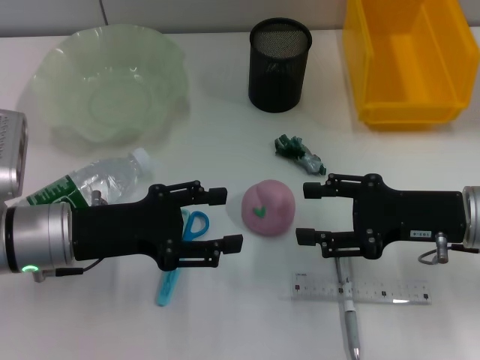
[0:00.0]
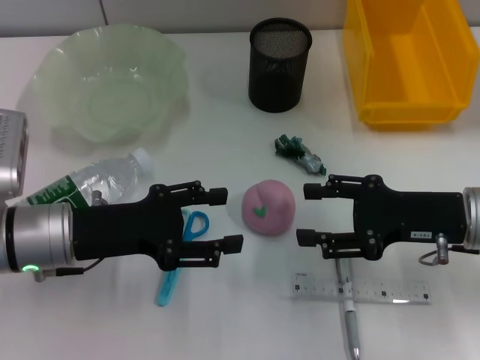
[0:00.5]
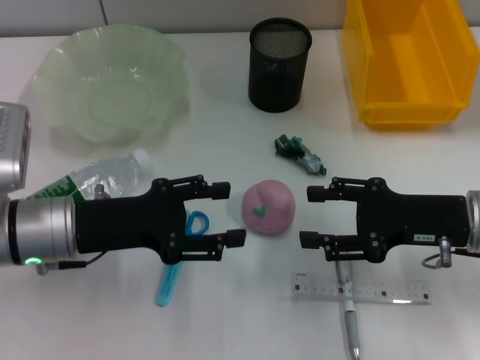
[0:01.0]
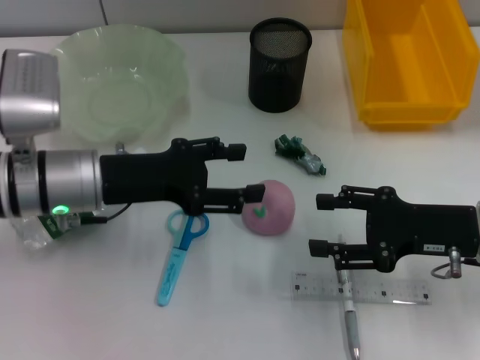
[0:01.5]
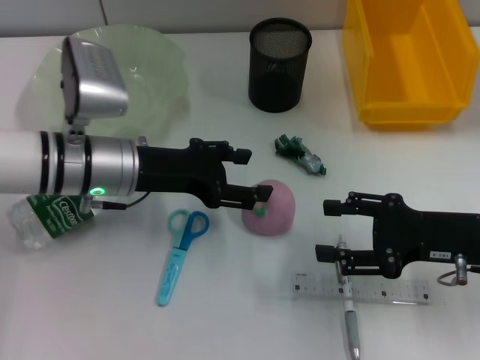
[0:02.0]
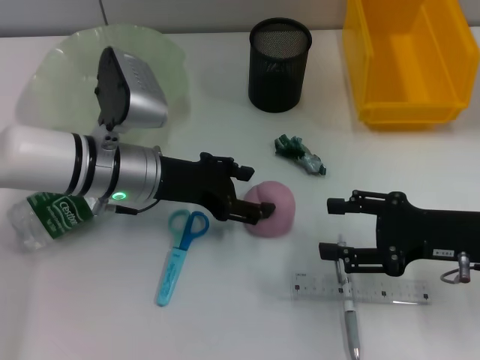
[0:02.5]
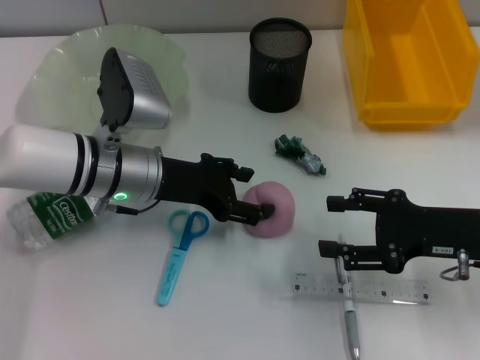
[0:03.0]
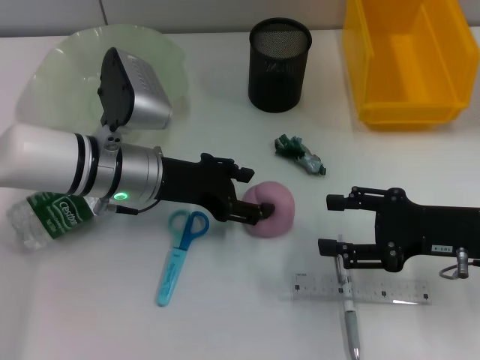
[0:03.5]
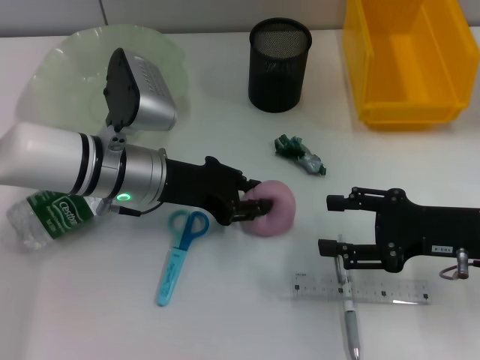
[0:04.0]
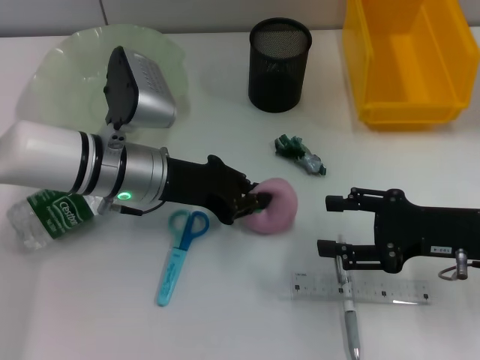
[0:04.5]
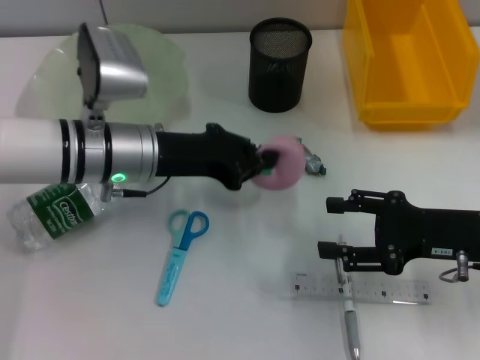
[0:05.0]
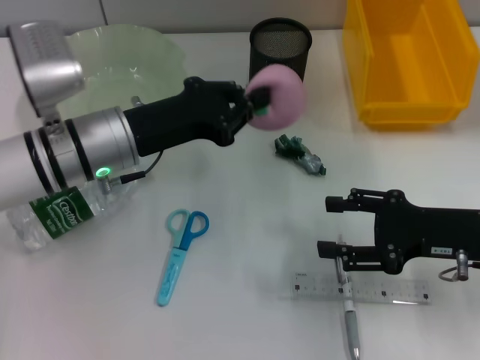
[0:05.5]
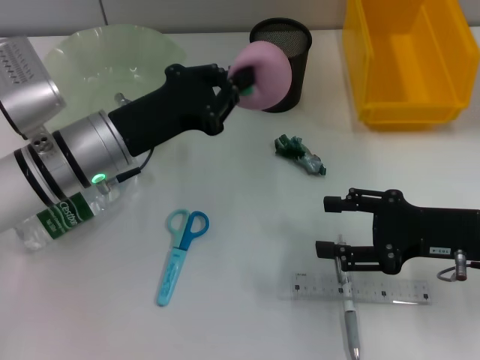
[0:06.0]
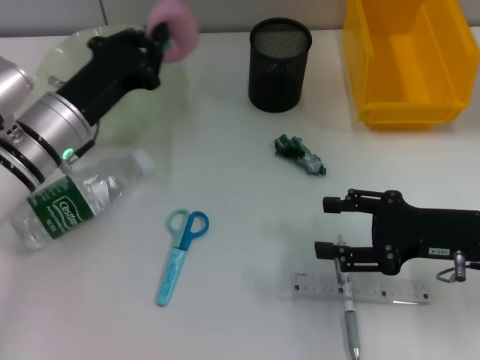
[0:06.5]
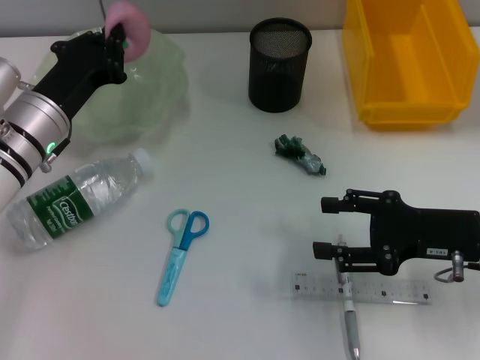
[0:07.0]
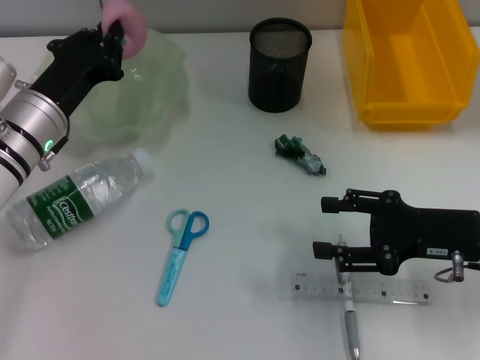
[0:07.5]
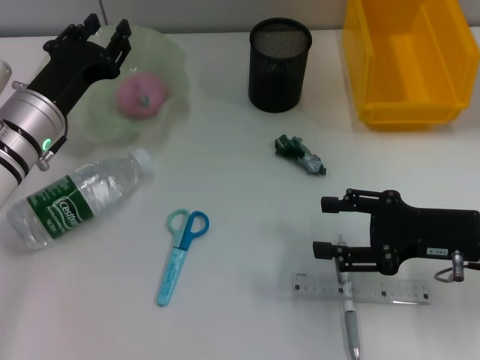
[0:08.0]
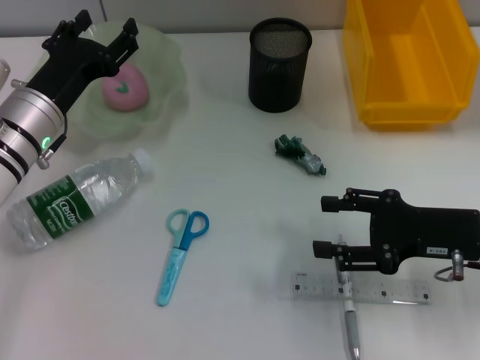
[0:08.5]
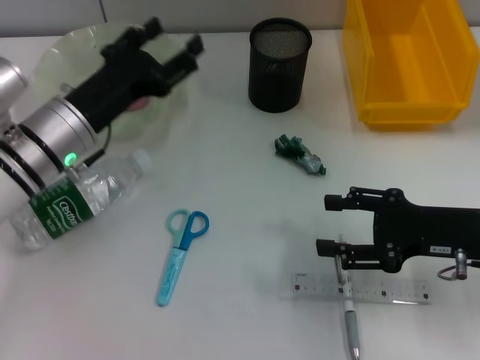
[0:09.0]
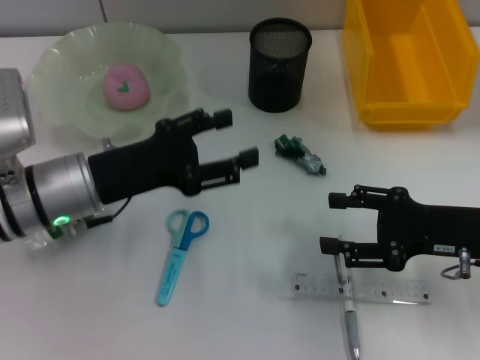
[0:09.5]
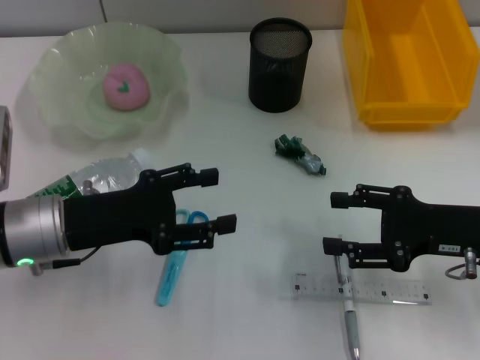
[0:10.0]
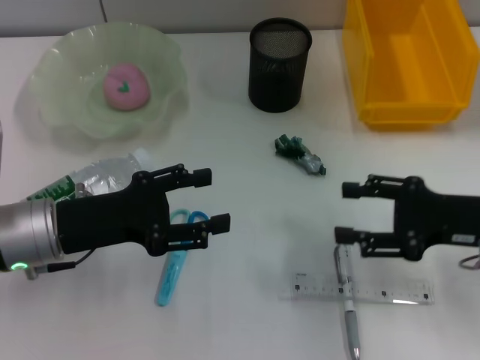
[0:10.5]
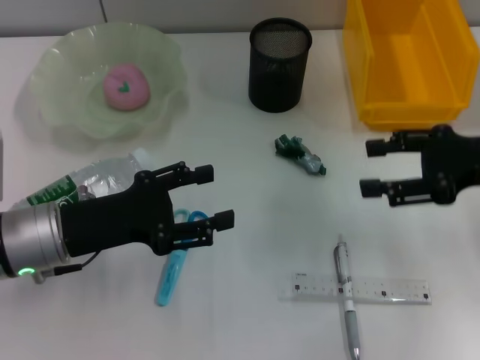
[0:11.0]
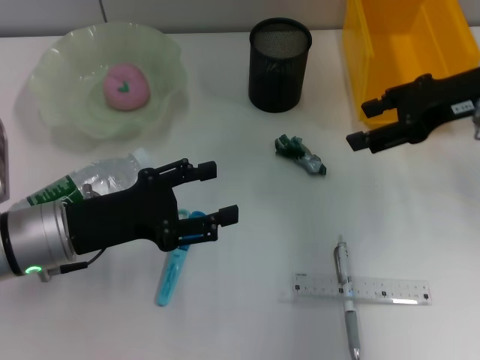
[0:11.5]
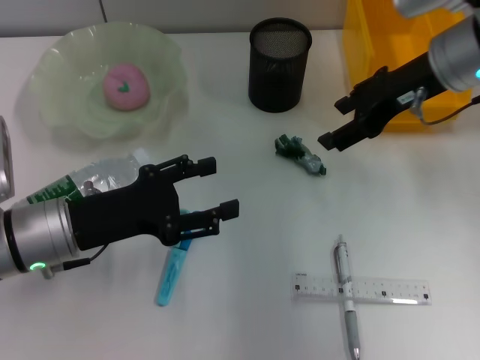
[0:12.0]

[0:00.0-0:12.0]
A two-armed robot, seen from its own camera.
Step, 0:00.0 to 0:04.5: Grab the peach with the left hand.
Step, 0:05.0 to 0:08.0: Place the peach into the fruit bowl with the left hand.
0:00.0 to 0:02.0: The left gripper travels forward and to the right by roughly 10 cm.
0:02.0 to 0:04.0: The left gripper closes its fingers.
0:04.0 to 0:06.0: The left gripper closes its fingers.
0:06.0 to 0:08.0: The left gripper is displaced to the left by some 5 cm.
0:08.0 to 0:10.0: The left gripper travels backward by approximately 10 cm, and opens.
0:10.0 to 0:12.0: The right gripper is displaced forward, upward and to the left by some 20 cm.

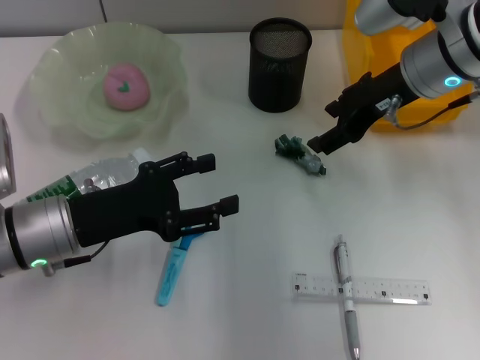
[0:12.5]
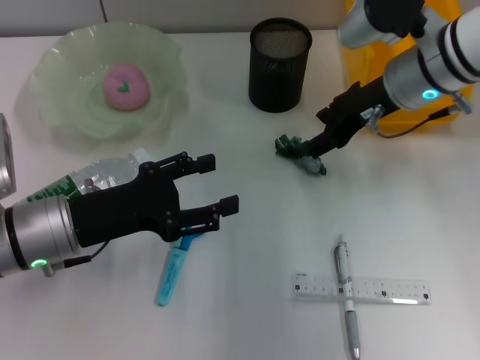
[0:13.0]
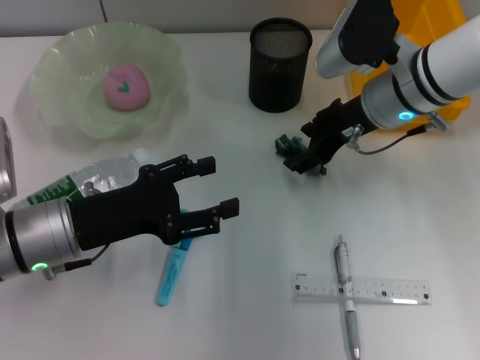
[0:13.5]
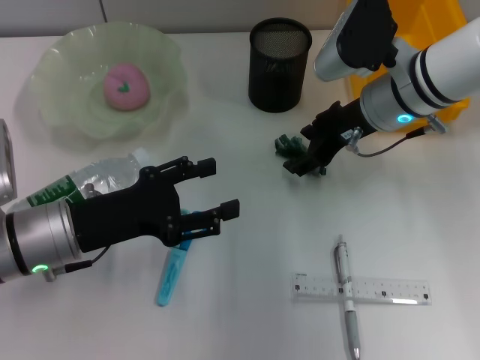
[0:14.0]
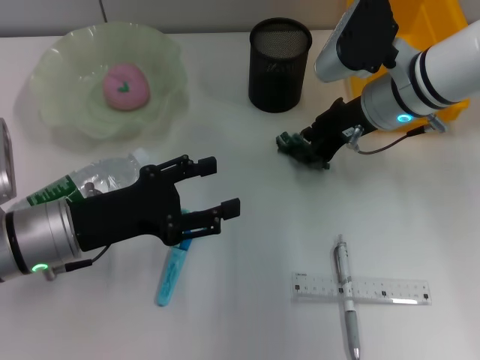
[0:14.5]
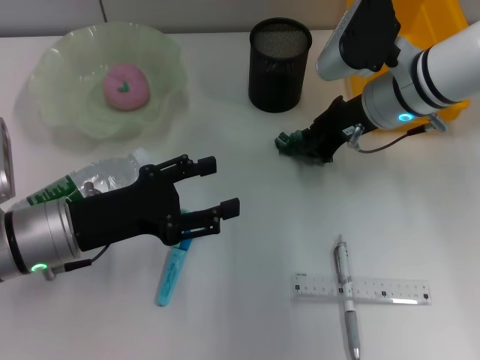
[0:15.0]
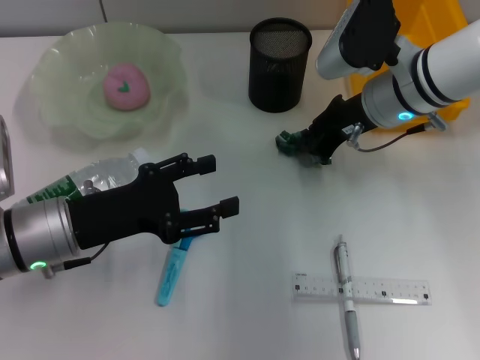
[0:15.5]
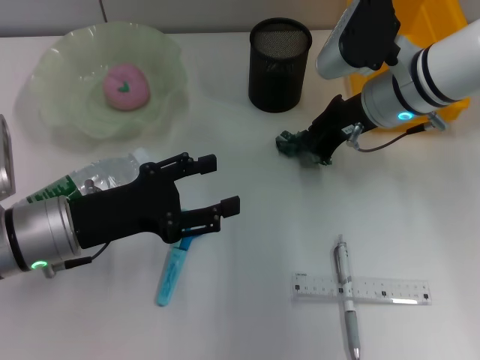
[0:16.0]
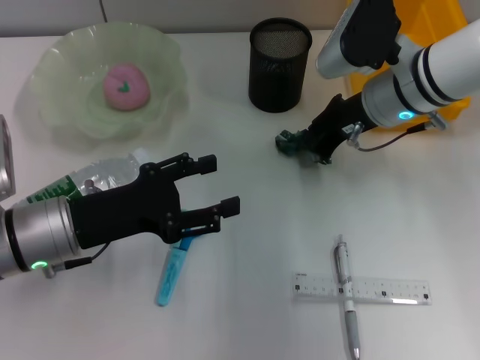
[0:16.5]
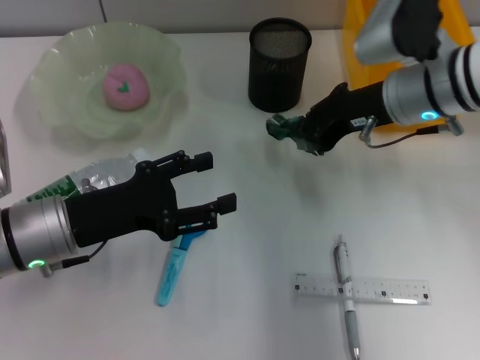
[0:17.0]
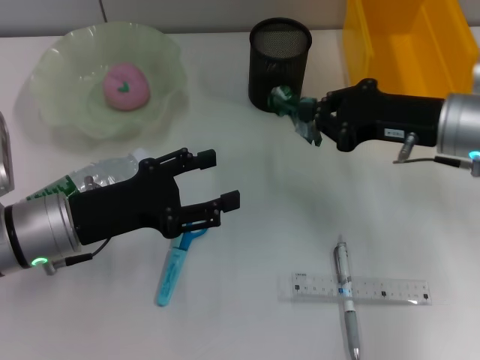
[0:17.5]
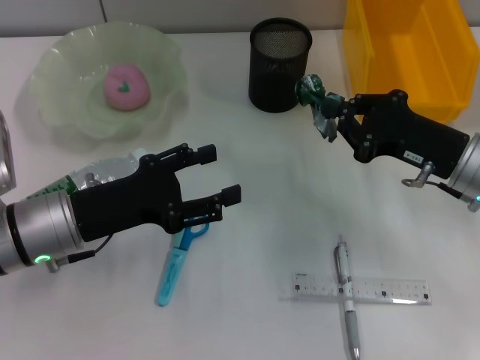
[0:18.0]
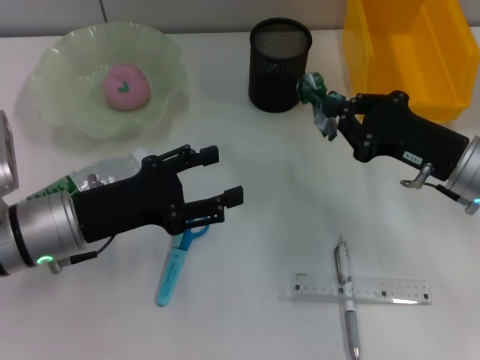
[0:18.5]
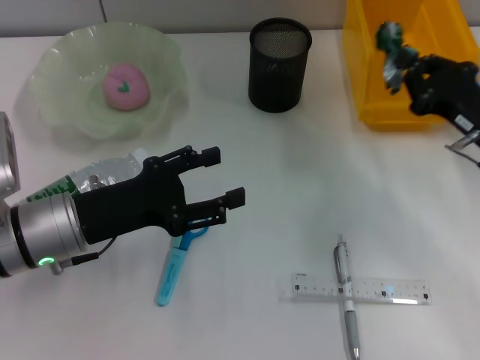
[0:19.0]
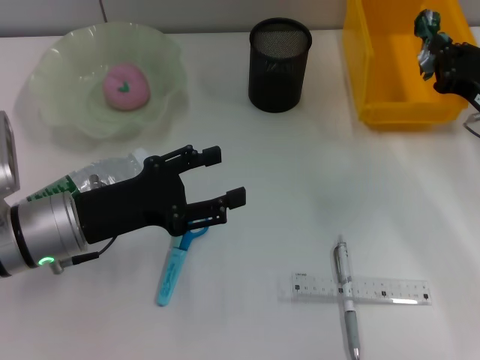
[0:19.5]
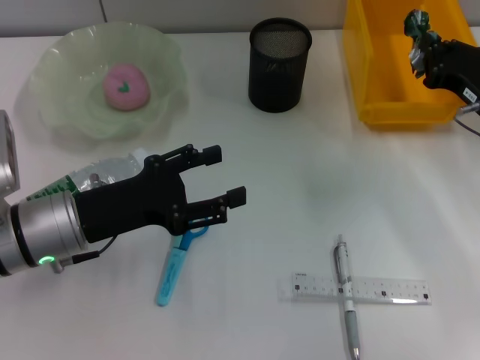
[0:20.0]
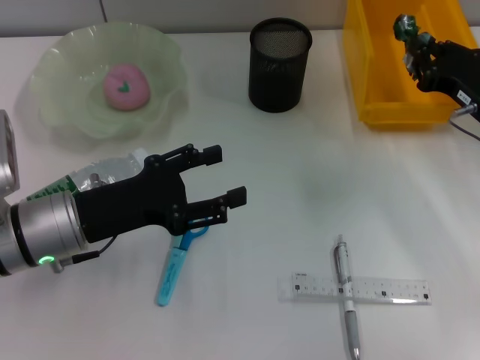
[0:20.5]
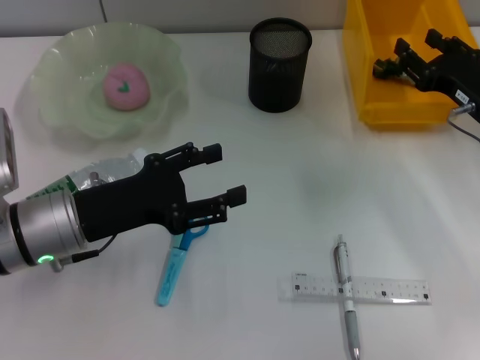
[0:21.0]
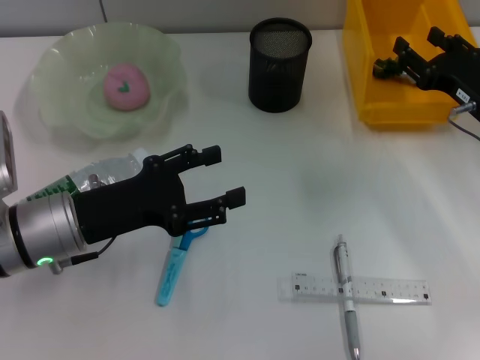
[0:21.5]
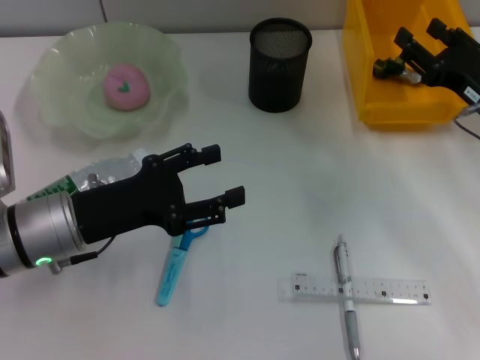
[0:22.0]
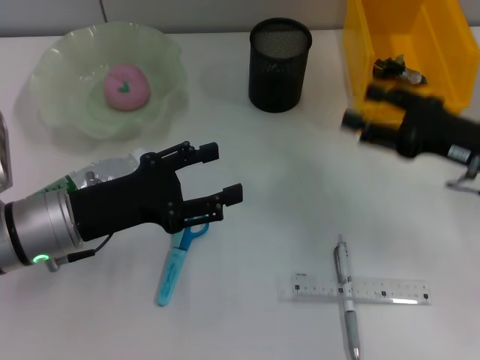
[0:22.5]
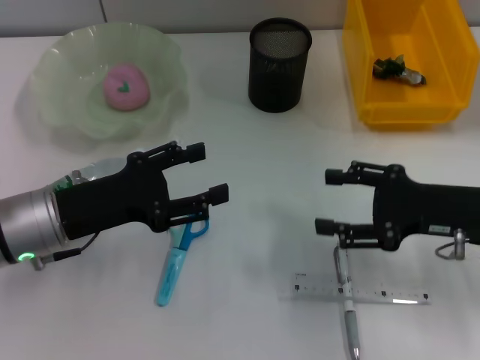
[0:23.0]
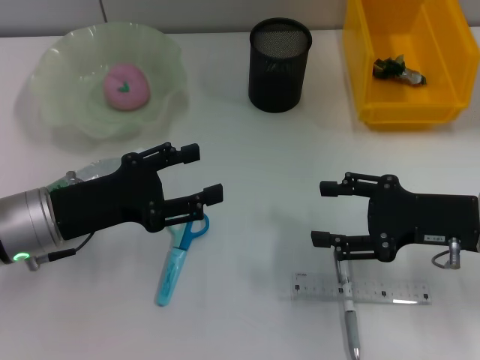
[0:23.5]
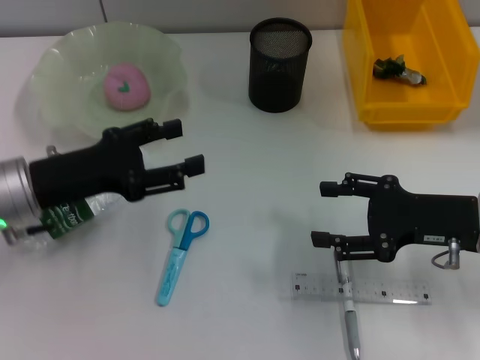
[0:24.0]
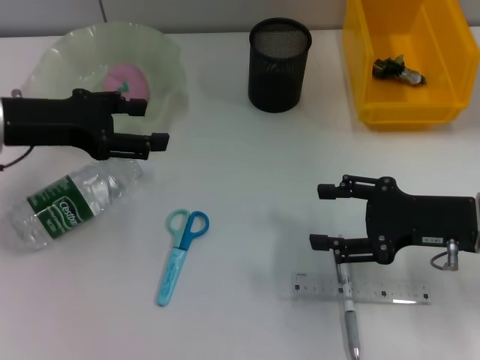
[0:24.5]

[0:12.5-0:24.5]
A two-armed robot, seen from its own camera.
Step, 0:12.5 to 0:16.0: Grab the plastic with the right hand.
Step, 0:16.5 to 0:20.5: Place the plastic into the trash can with the right hand.
0:12.5 to 0:14.5: The right gripper heads downward, covering roughly 5 cm.
0:14.5 to 0:16.5: The right gripper closes.
0:16.5 to 0:18.5: The right gripper travels backward, to the right and downward by roughly 15 cm.
0:18.5 to 0:20.5: The right gripper ends up roughly 5 cm from where it was.
0:20.5 to 0:22.5: The right gripper changes place by roughly 5 cm, and opens.
0:22.5 to 0:24.5: The left gripper goes roughly 10 cm upward, forward and to the left.

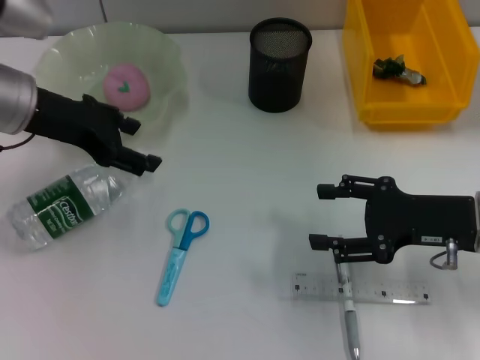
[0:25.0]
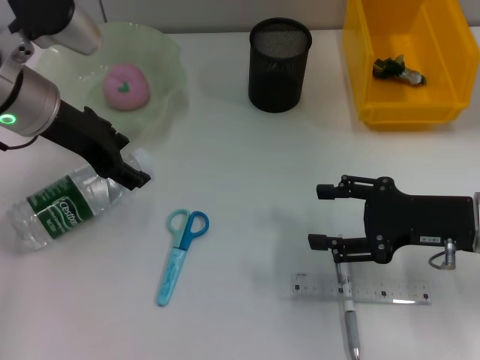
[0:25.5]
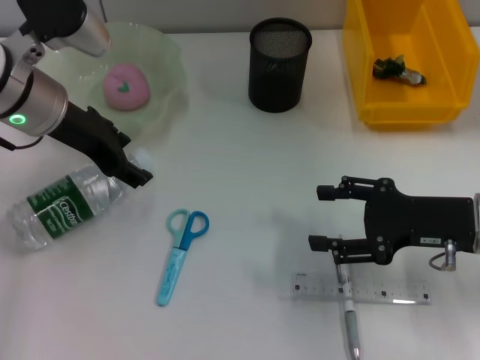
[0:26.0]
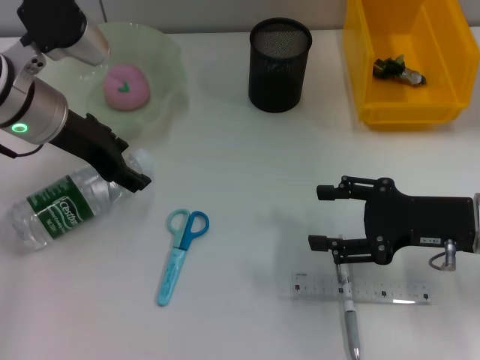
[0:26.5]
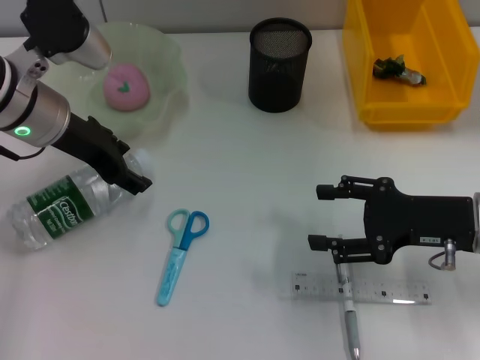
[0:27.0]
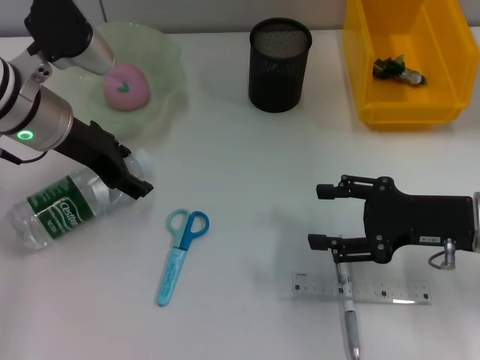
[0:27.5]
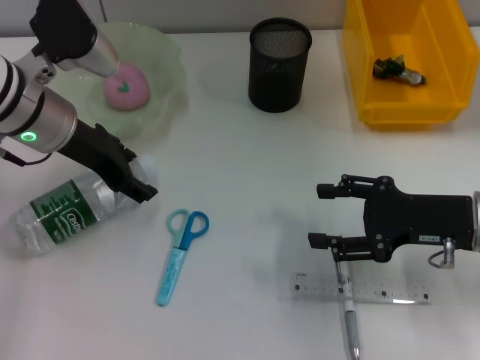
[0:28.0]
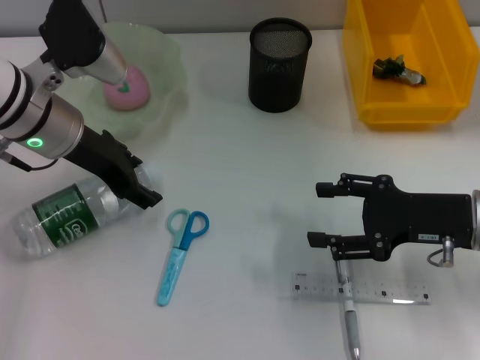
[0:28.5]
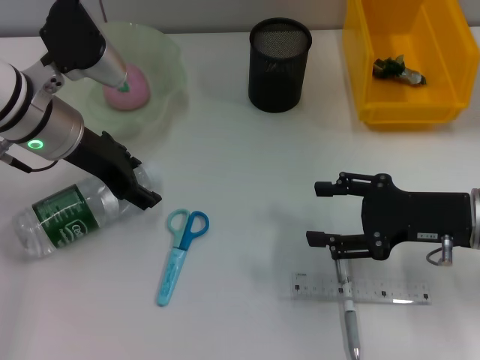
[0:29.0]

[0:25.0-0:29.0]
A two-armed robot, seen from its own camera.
0:25.0 to 0:29.0: The grippers make only small movements.
